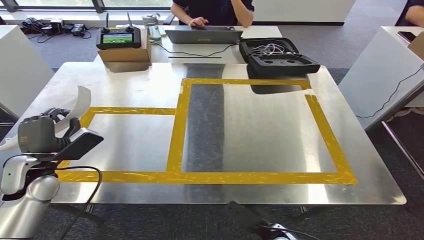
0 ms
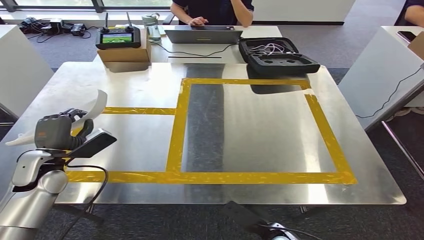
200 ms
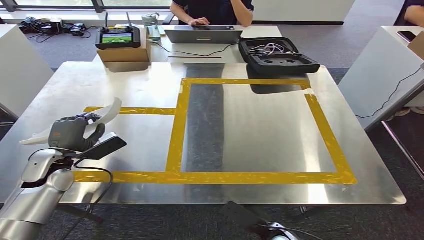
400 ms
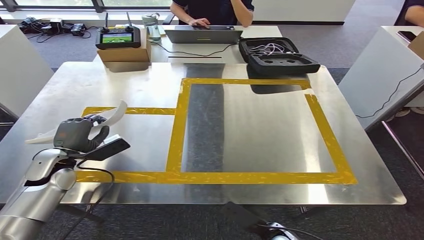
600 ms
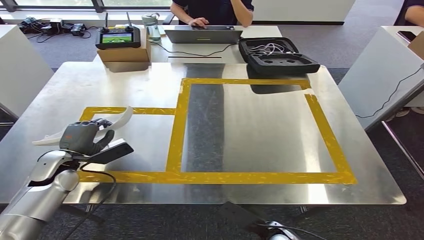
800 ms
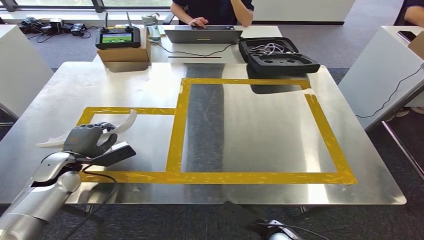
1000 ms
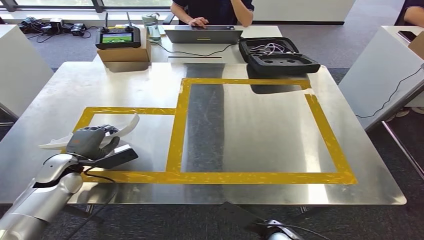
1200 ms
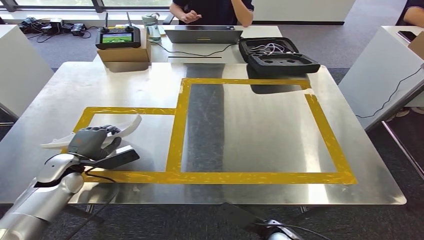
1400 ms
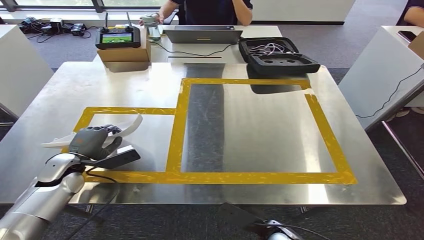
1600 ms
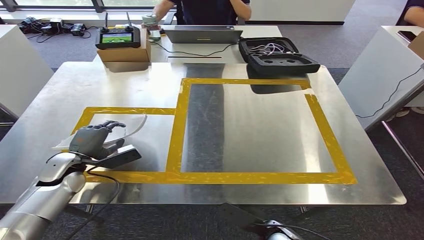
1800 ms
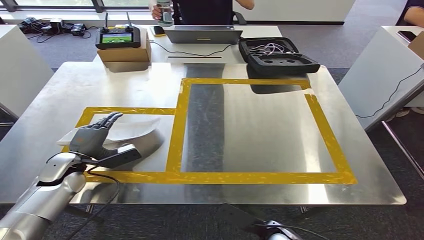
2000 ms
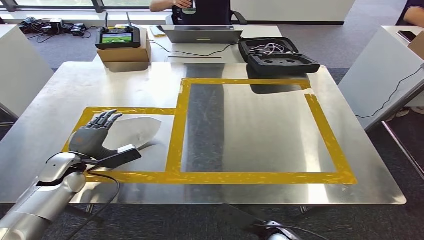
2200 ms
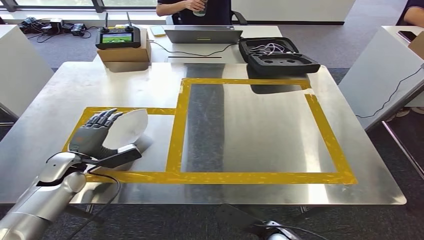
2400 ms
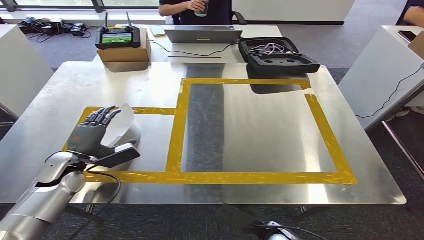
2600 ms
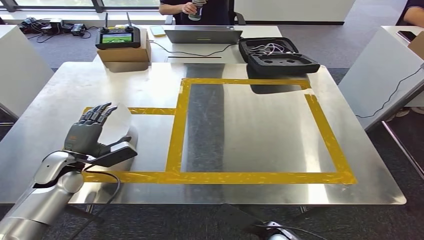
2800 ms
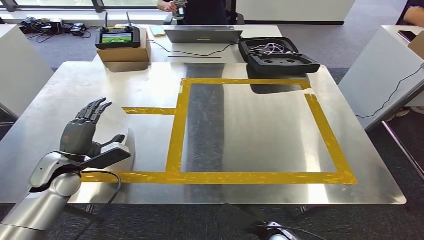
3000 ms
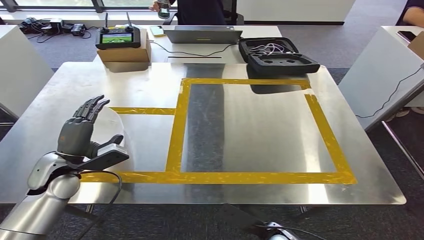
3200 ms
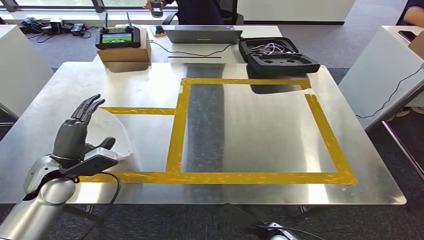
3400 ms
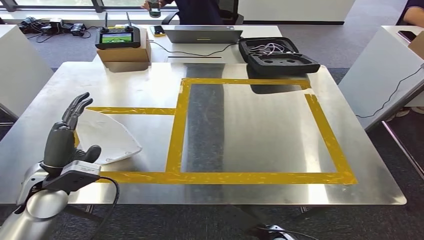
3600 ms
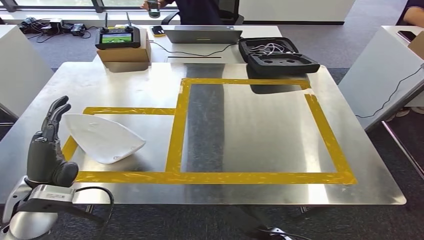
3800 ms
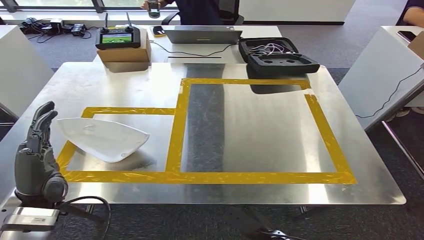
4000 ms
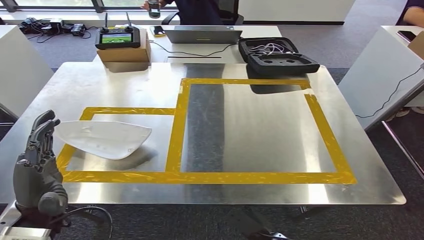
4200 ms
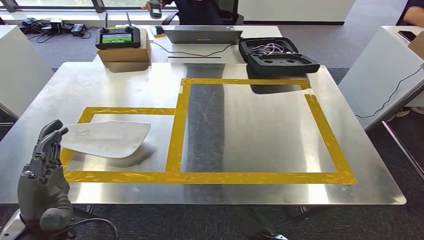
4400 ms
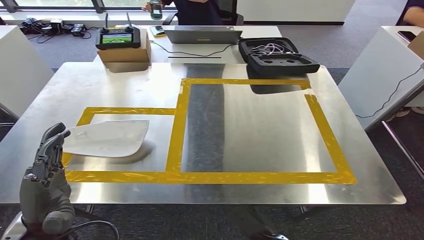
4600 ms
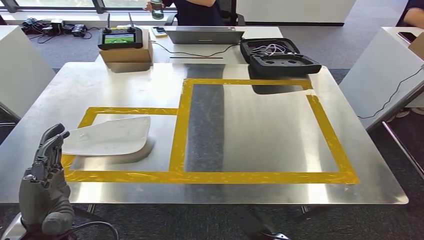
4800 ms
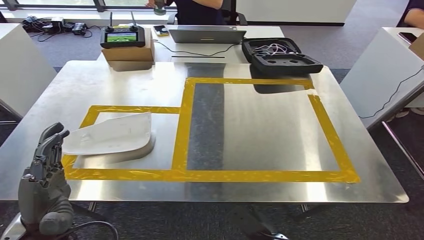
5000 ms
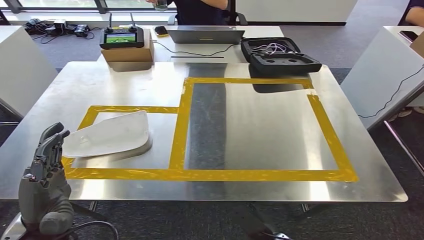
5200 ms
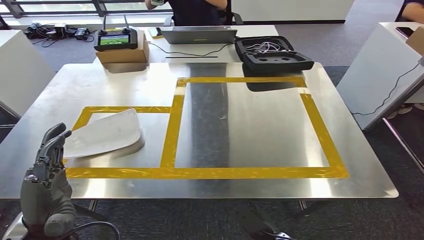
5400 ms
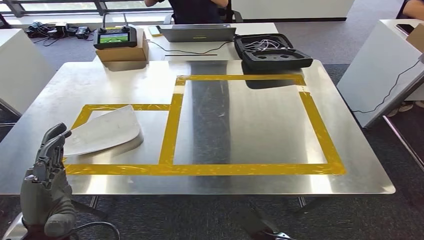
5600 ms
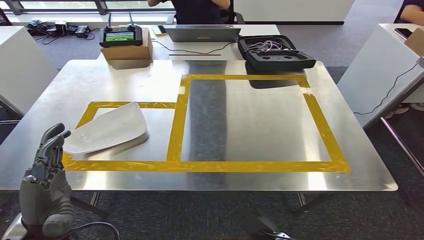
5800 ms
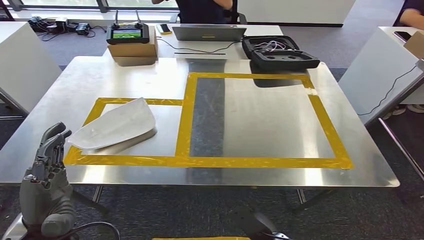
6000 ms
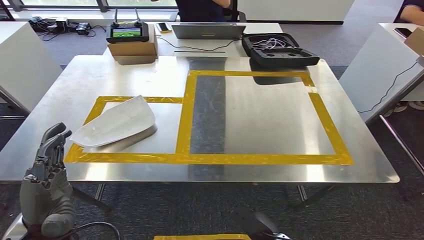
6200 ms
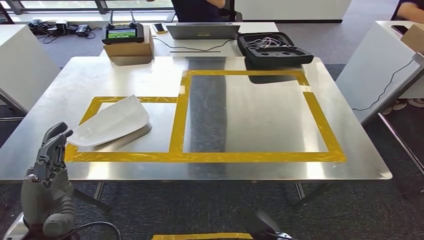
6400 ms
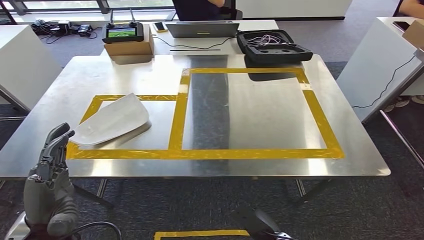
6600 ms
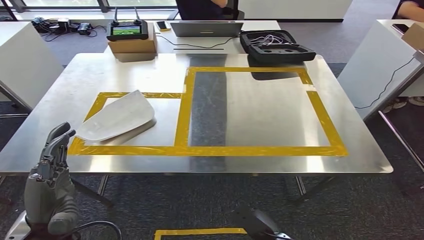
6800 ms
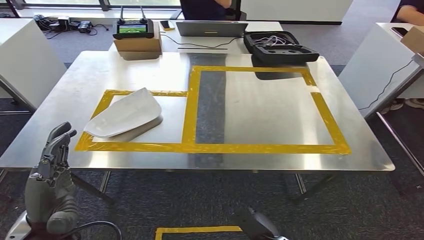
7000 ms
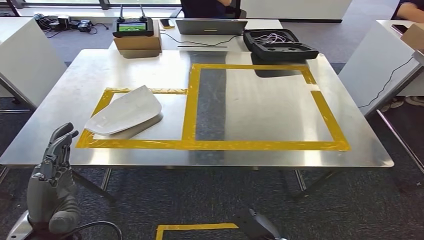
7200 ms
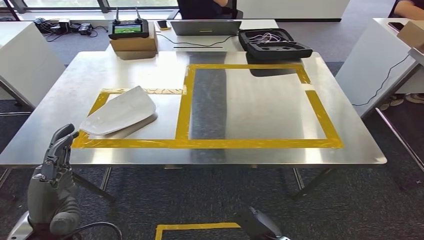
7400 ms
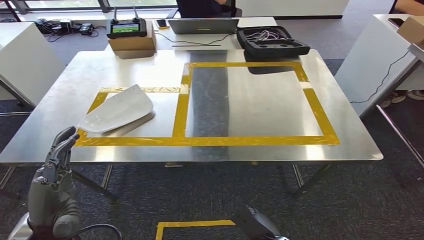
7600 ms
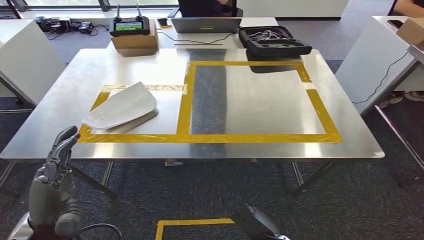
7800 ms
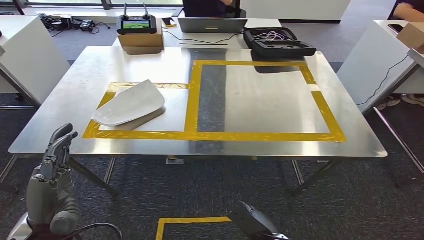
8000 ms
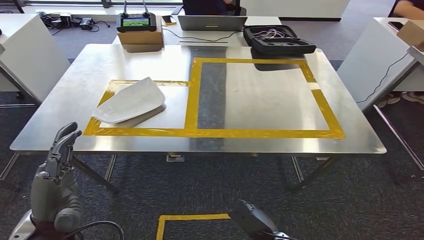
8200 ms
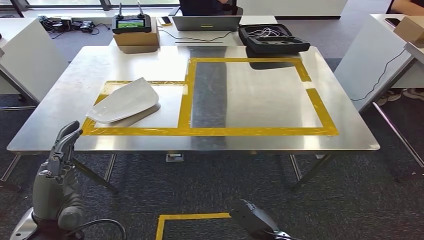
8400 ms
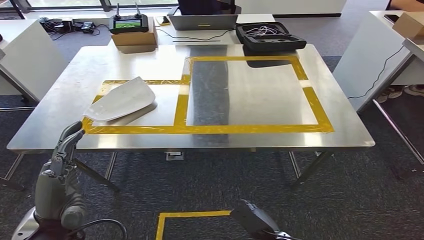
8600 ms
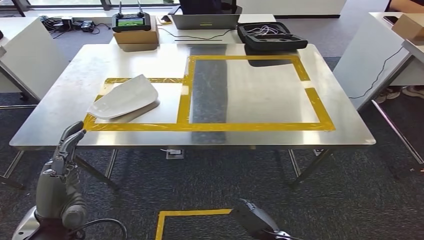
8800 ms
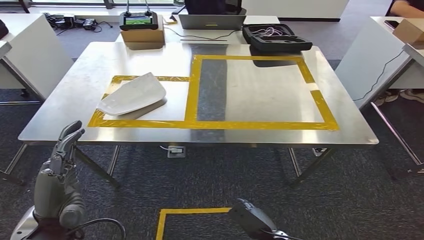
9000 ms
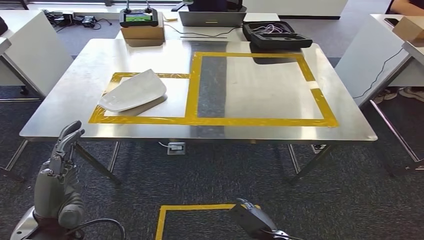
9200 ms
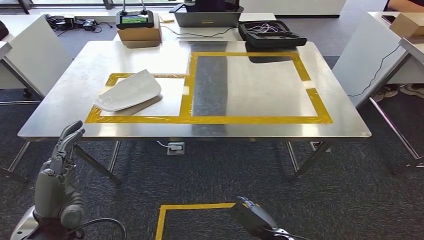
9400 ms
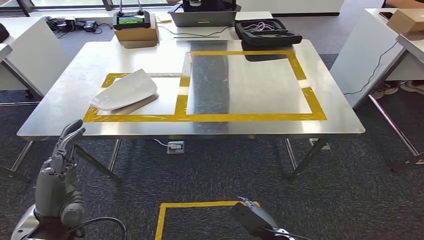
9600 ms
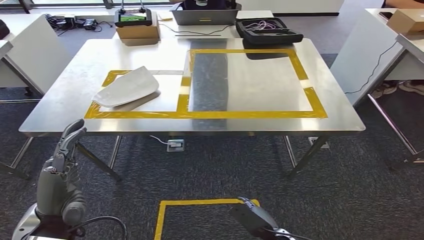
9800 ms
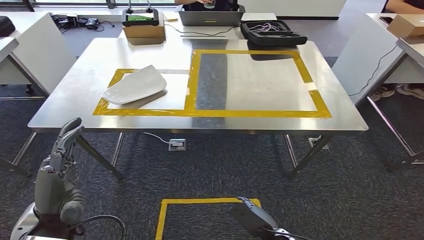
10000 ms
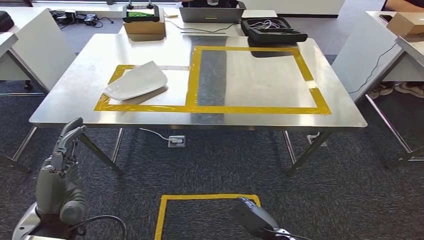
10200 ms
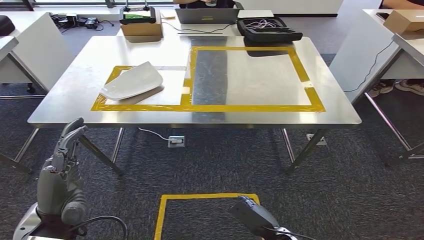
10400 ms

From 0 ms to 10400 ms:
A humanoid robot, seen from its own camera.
Step, from 0 ms to 6200 ms: Insert the small parts into the corresponding slots on the workbench.
From 0 ms to 1400 ms: The left hand moves downward, some 5 cm.
From 1400 ms to 3000 ms: The hands move only a little.
From 3000 ms to 4400 ms: The left hand goes roughly 20 cm backward, to the right and upward.

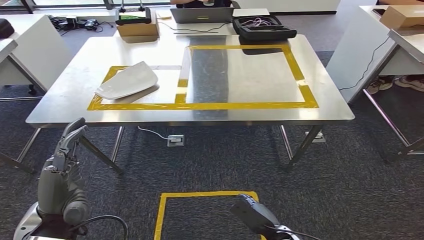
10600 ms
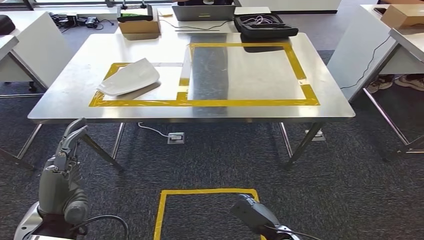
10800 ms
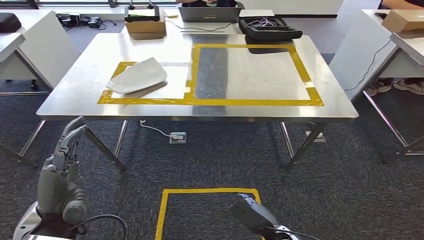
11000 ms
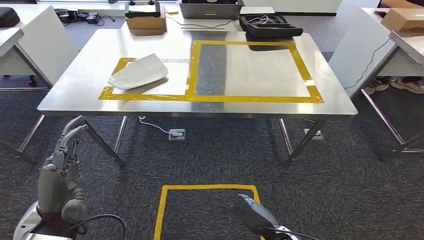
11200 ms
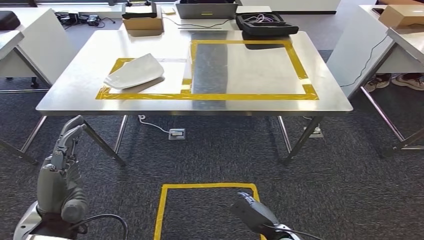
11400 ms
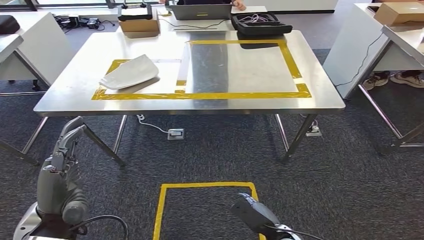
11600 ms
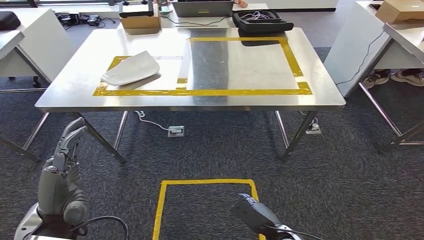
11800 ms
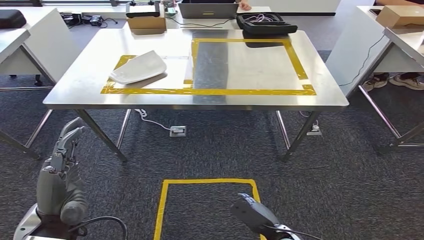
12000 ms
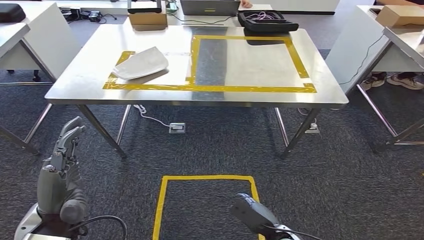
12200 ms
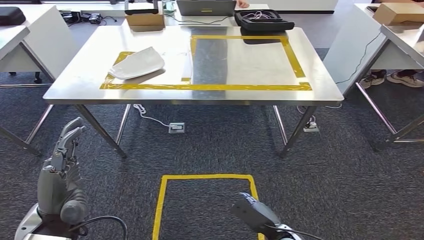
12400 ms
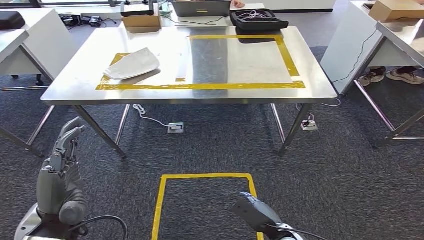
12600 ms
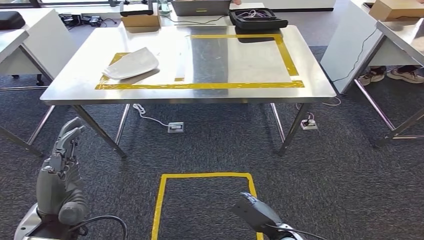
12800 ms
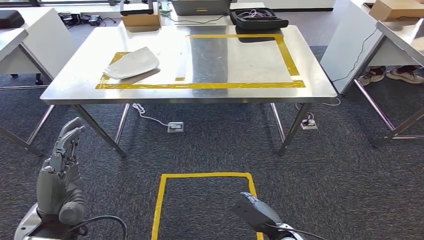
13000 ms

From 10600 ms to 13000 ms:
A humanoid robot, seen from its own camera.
Step, from 10600 ms to 13000 ms: Return to the initial position at the workbench.
